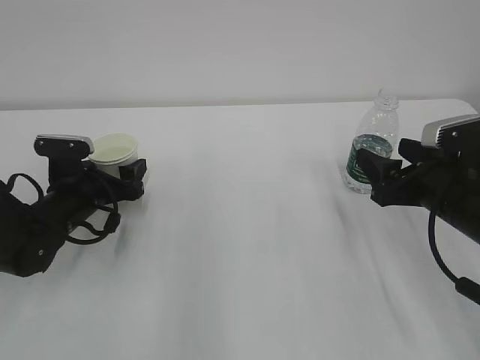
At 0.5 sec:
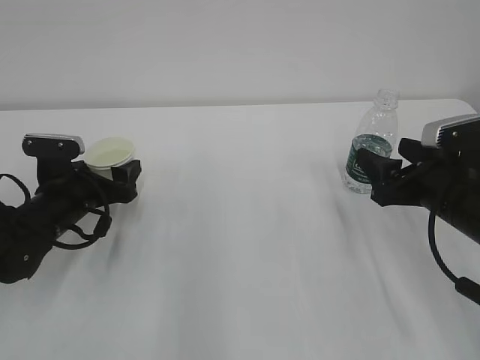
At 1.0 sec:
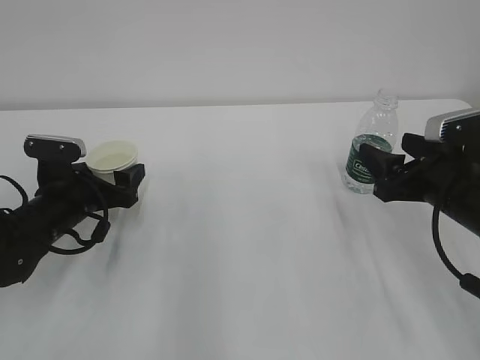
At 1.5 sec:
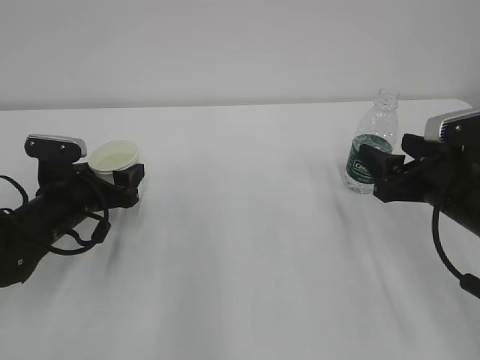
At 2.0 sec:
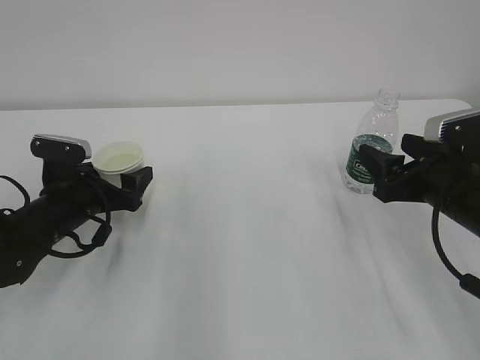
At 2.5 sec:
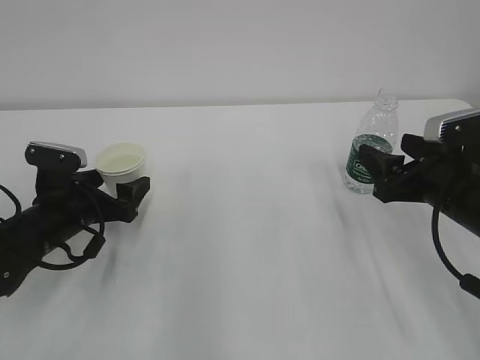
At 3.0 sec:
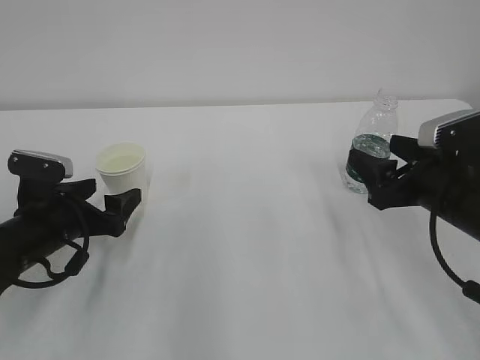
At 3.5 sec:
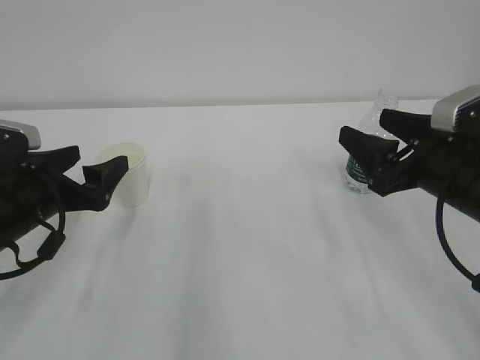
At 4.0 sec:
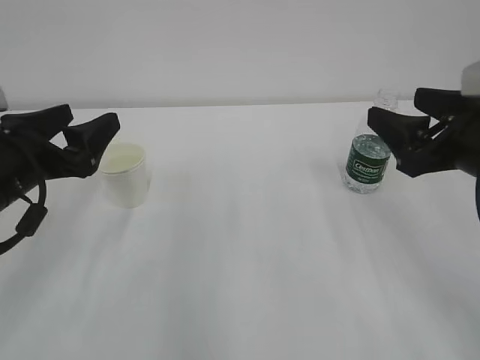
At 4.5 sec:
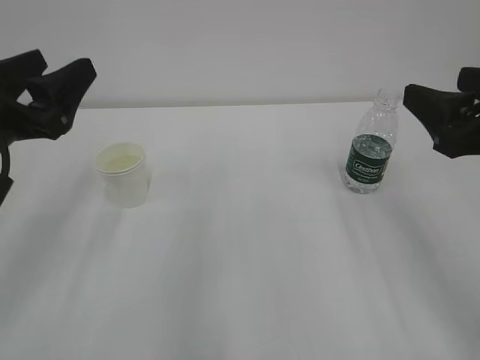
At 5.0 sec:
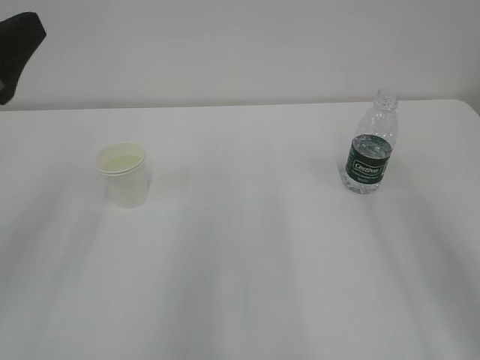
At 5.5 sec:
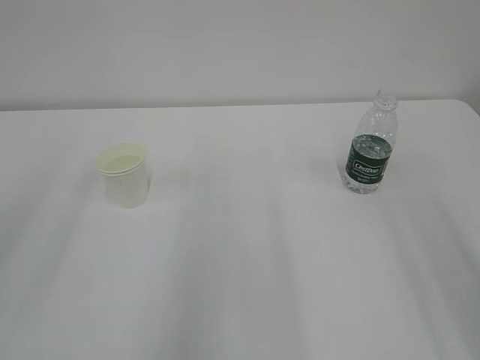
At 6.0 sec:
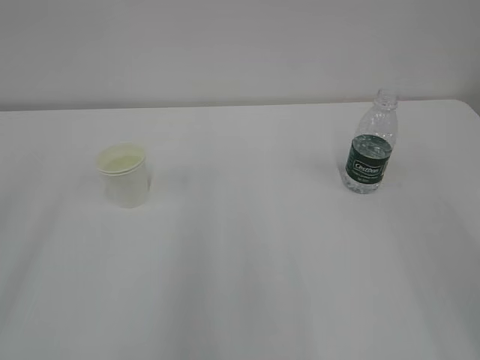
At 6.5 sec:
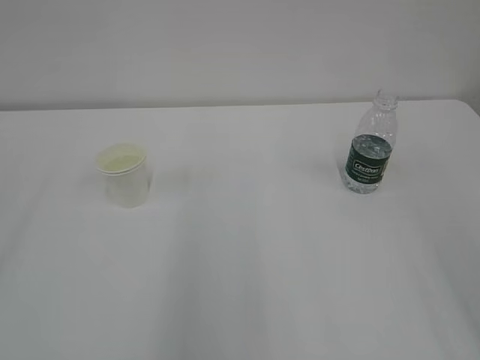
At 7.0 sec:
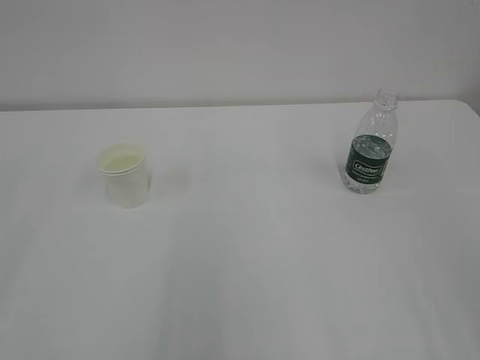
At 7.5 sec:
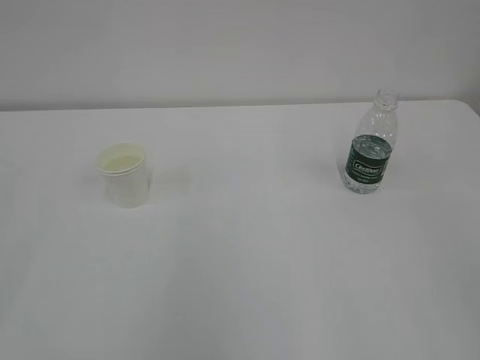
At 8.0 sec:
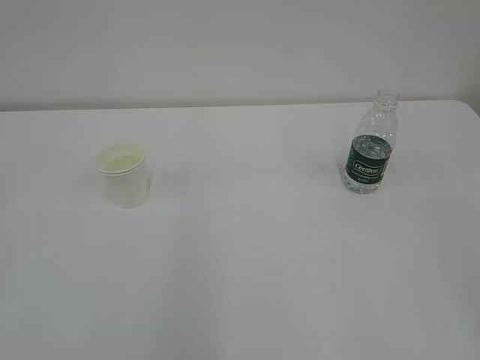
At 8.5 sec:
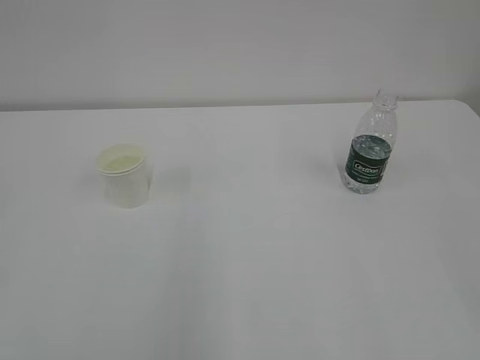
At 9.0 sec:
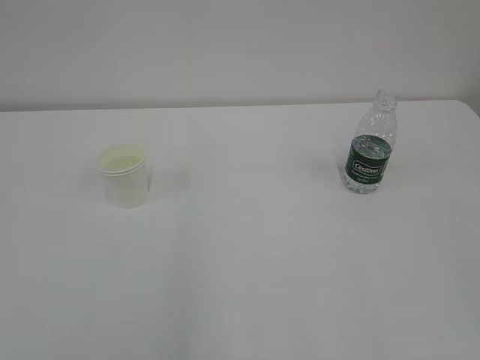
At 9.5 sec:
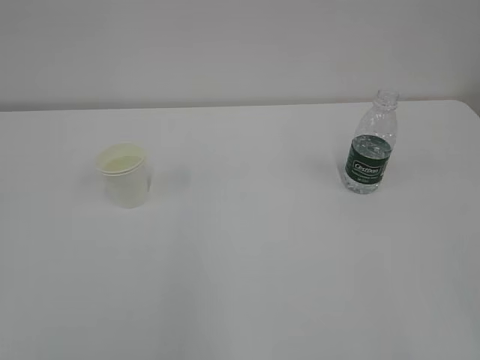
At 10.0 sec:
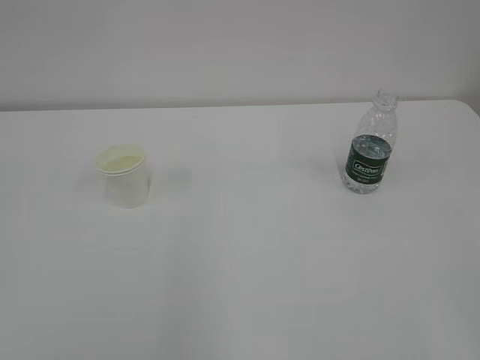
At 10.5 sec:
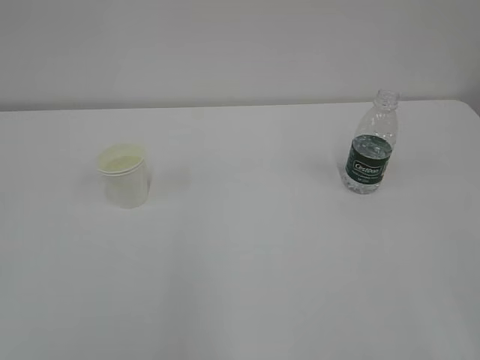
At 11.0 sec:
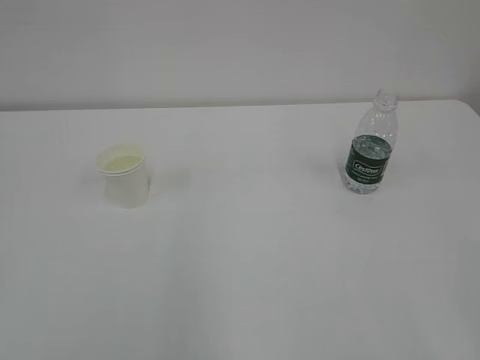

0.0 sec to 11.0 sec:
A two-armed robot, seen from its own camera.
0.0 sec to 2.0 sec: The left gripper opens its fingers.
2.0 sec to 3.5 sec: The left gripper heads backward and upward, covering about 10 cm.
3.5 sec to 5.5 sec: The grippers both shift upward and backward by some 20 cm. The left gripper closes.
